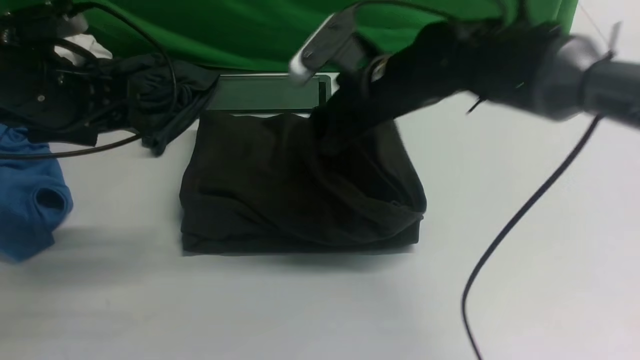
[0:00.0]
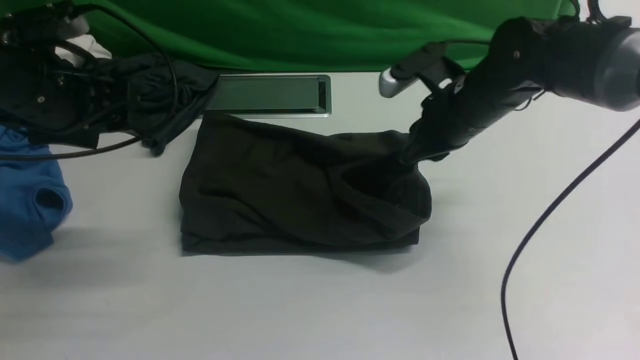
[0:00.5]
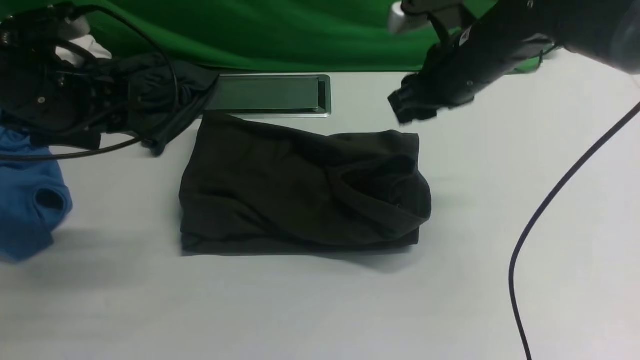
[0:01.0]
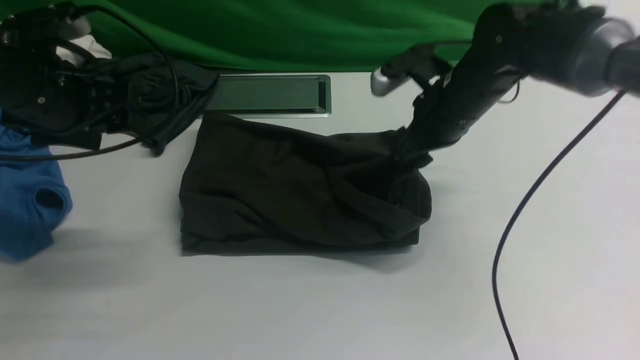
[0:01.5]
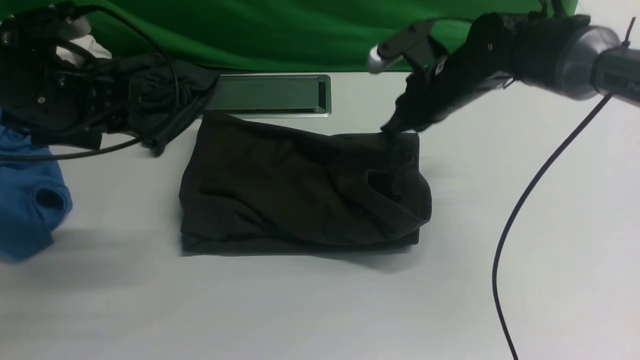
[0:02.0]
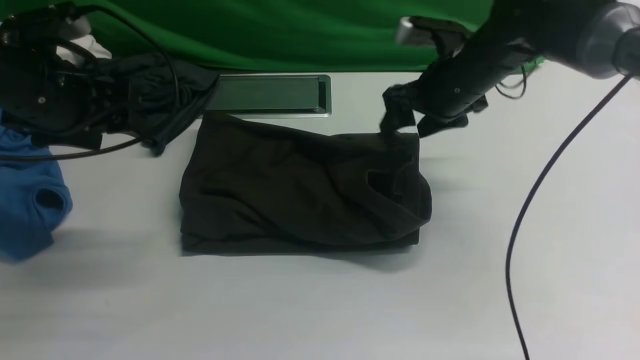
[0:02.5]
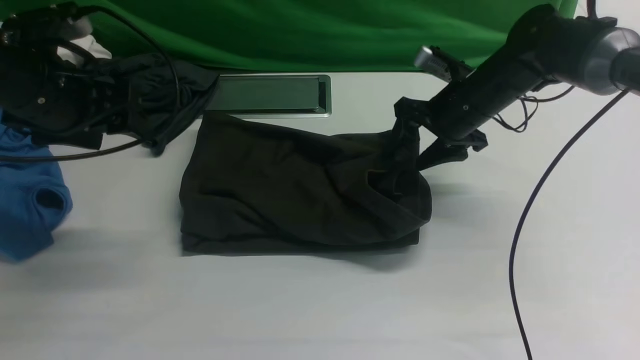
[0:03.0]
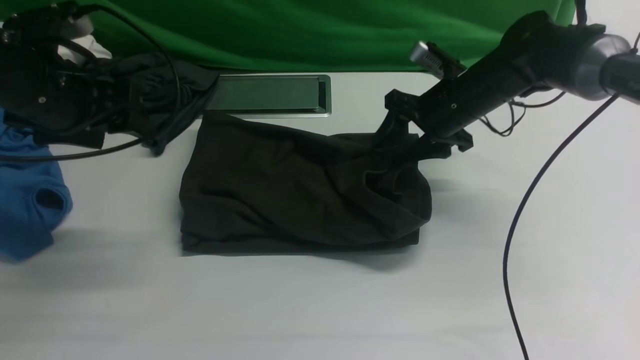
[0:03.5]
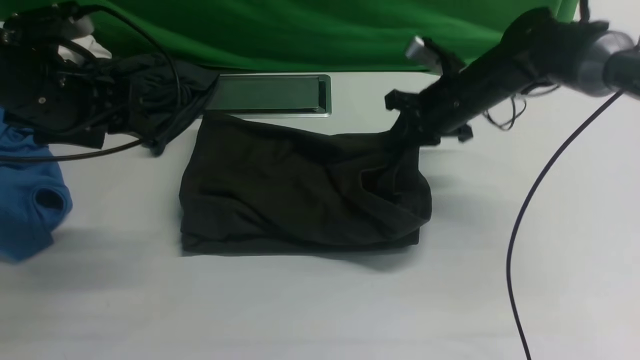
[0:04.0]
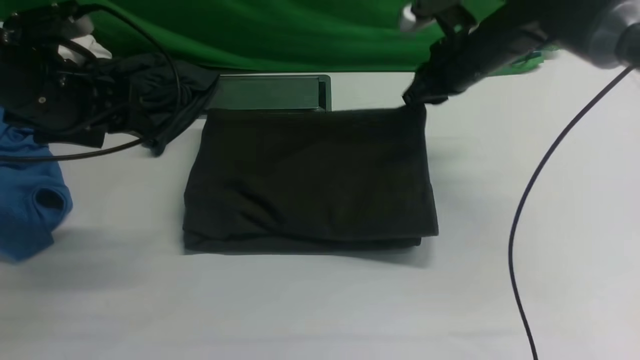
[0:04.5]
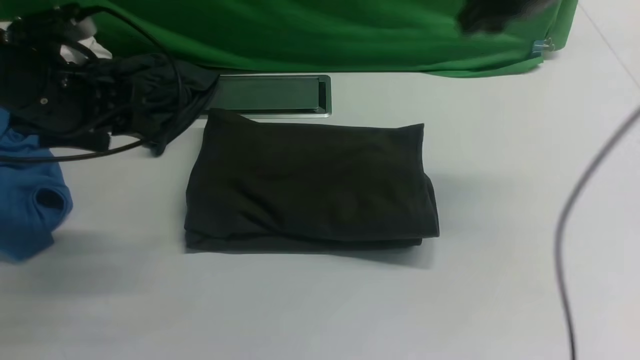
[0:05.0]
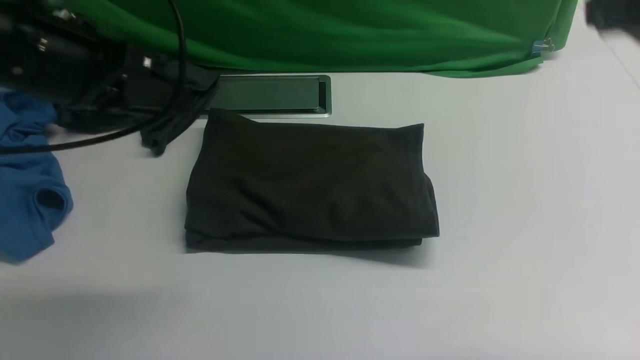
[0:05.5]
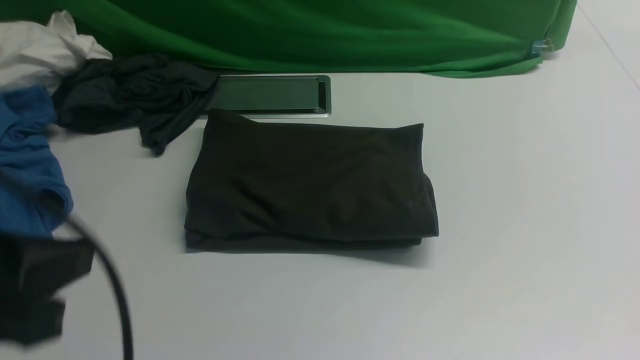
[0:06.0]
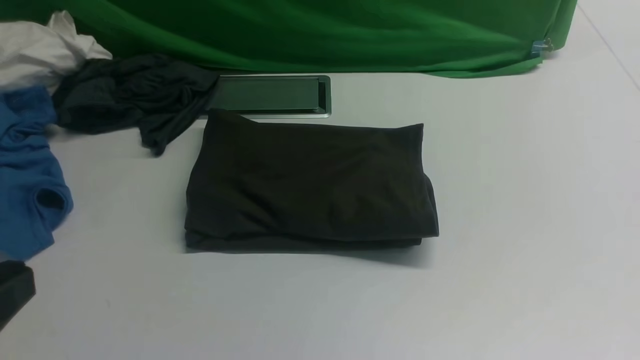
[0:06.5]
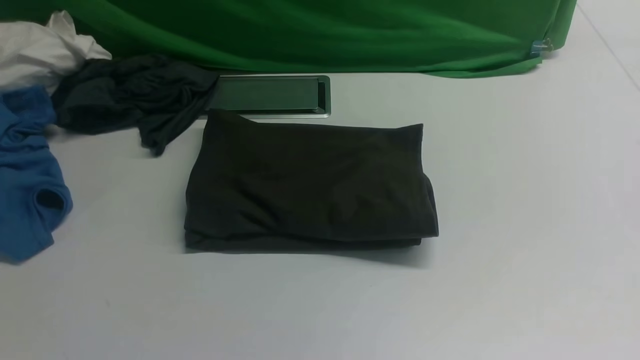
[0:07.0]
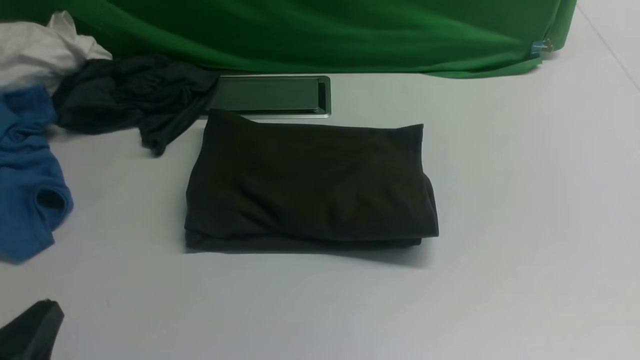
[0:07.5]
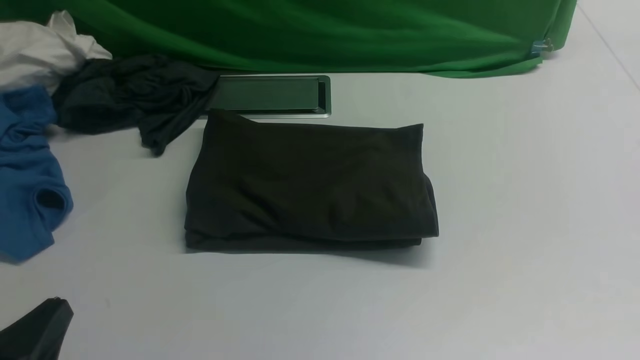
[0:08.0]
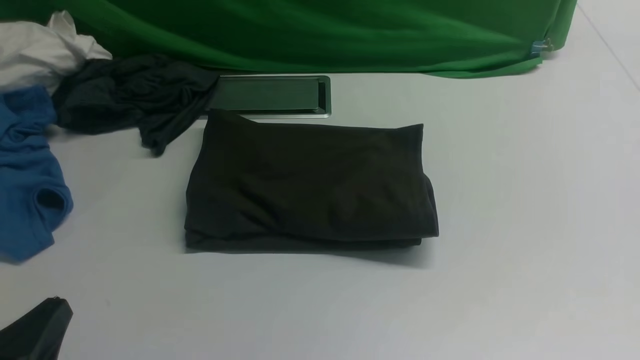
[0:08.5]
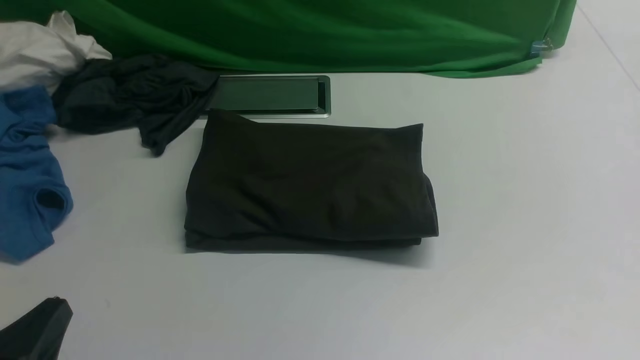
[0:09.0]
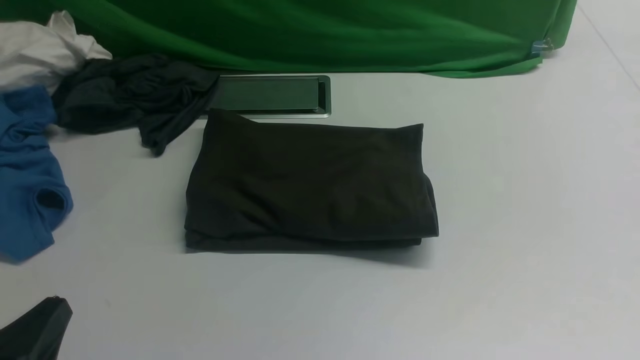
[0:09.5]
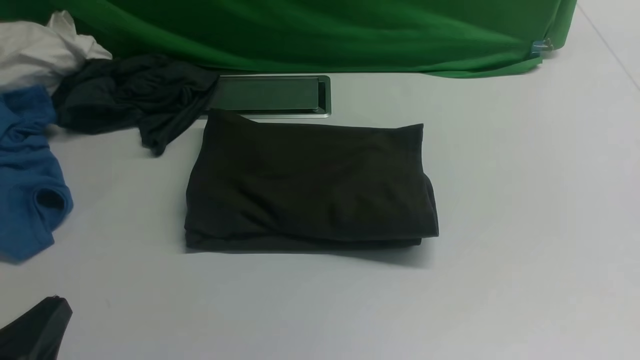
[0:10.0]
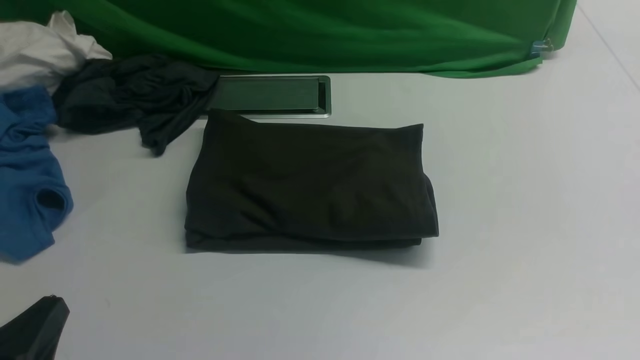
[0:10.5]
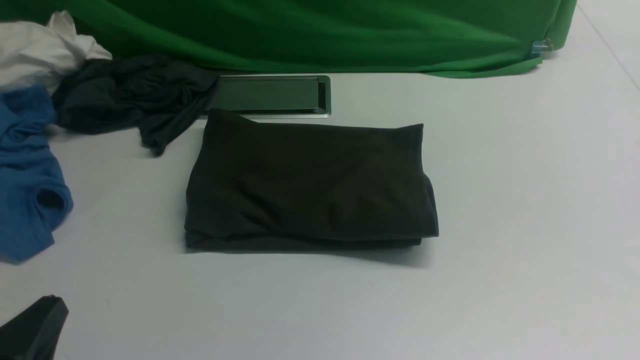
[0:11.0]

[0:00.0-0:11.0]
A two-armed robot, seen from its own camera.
0:00.0 to 0:02.0: The right gripper travels to the right and forward by about 10 cm, and opens and closes again.
0:02.0 to 0:03.5: The right gripper opens its fingers.
0:03.5 to 0:05.5: The left gripper heads upward and backward, covering some 10 cm, and closes up, while the right gripper moves backward and upward, roughly 30 cm, and closes its fingers.
0:05.5 to 0:07.5: The right gripper goes about 20 cm downward and backward, while the left gripper heads backward and downward, covering about 25 cm.
